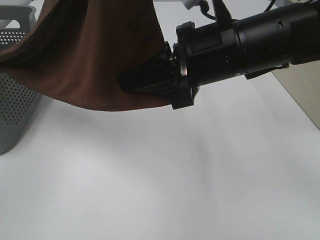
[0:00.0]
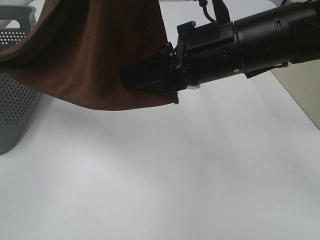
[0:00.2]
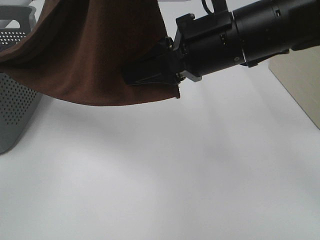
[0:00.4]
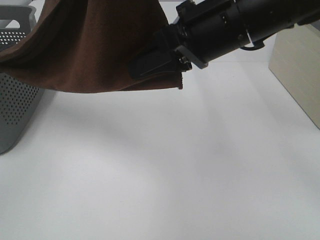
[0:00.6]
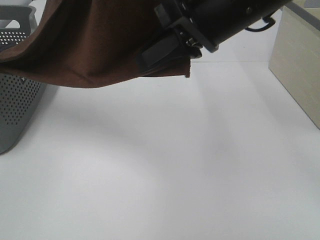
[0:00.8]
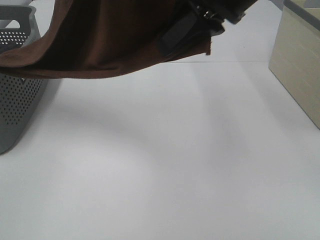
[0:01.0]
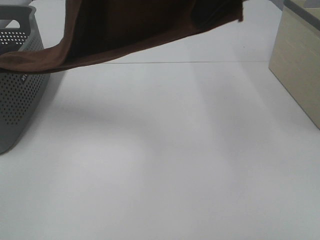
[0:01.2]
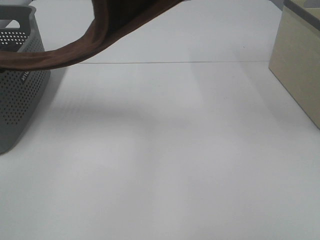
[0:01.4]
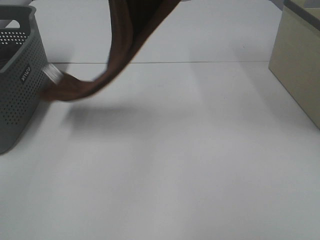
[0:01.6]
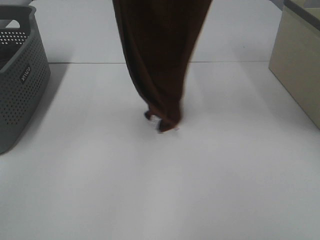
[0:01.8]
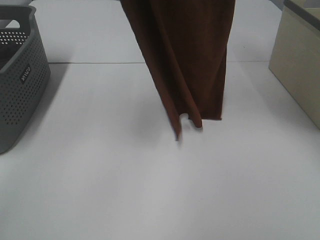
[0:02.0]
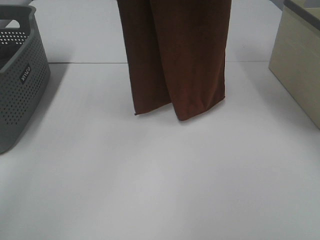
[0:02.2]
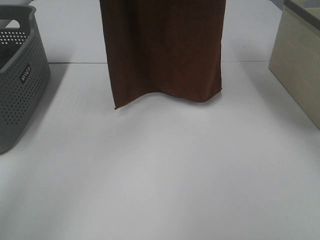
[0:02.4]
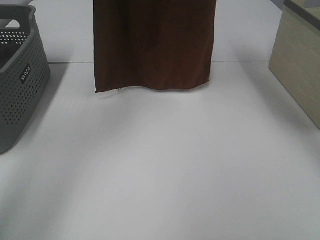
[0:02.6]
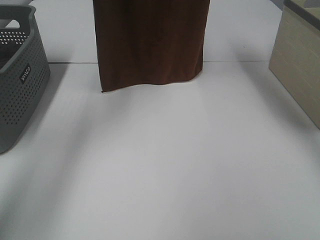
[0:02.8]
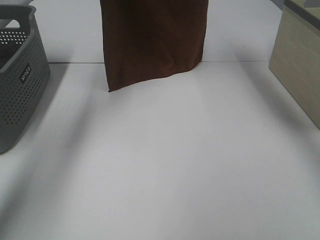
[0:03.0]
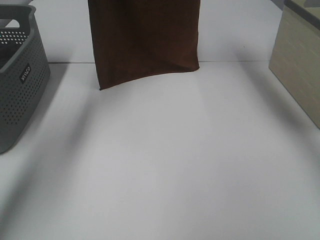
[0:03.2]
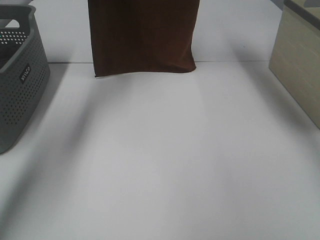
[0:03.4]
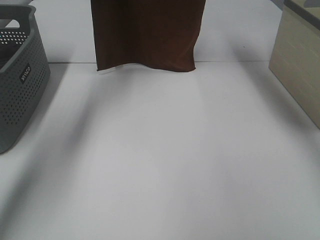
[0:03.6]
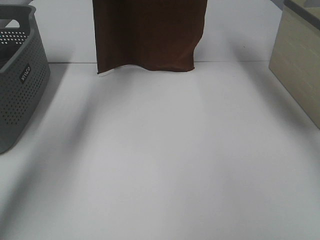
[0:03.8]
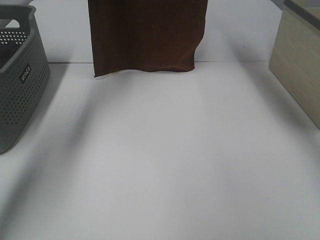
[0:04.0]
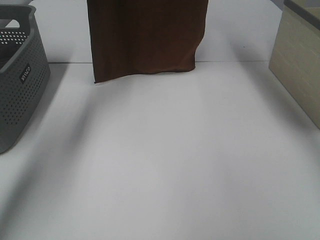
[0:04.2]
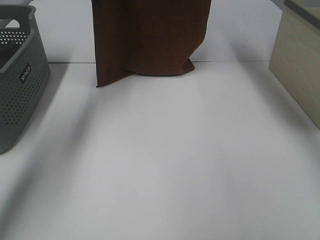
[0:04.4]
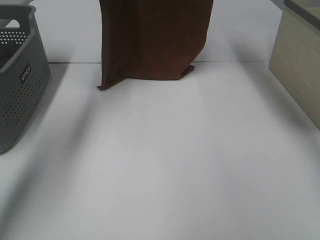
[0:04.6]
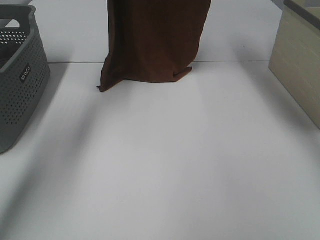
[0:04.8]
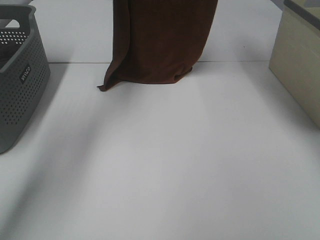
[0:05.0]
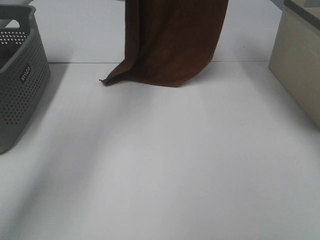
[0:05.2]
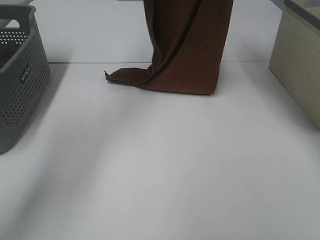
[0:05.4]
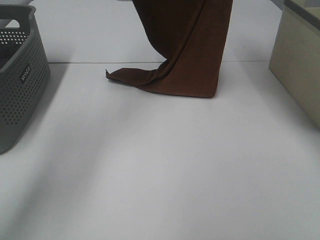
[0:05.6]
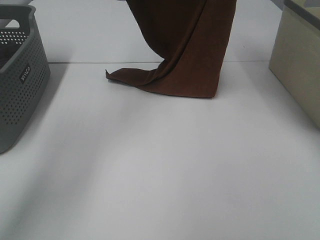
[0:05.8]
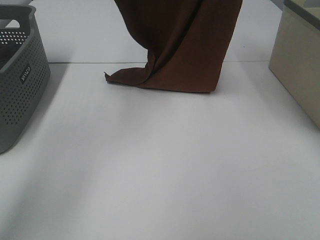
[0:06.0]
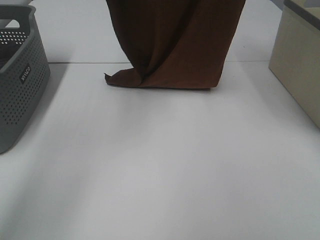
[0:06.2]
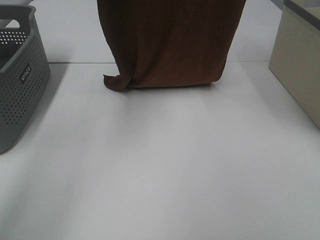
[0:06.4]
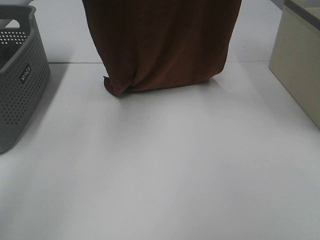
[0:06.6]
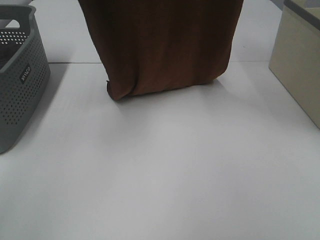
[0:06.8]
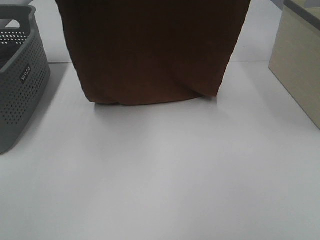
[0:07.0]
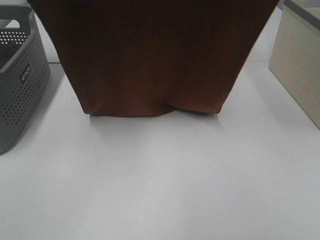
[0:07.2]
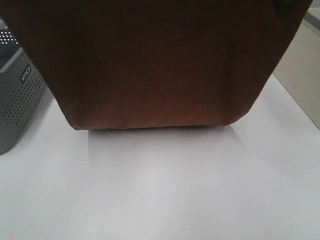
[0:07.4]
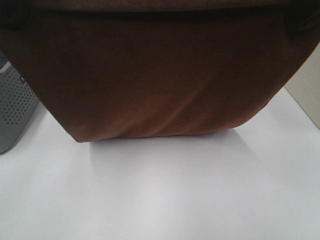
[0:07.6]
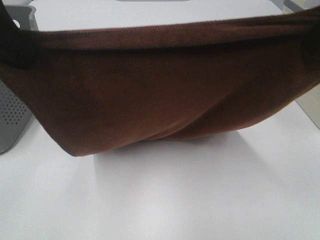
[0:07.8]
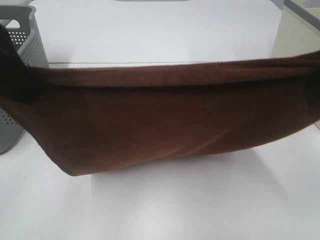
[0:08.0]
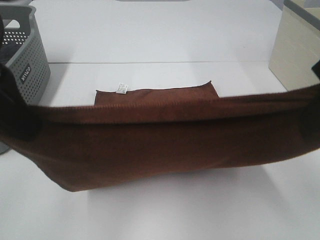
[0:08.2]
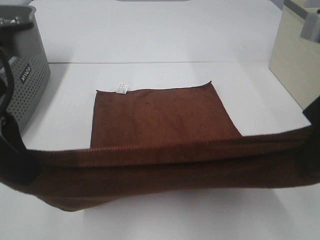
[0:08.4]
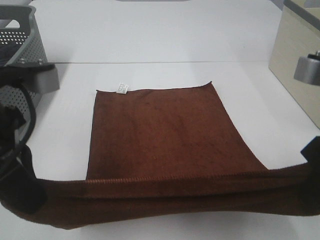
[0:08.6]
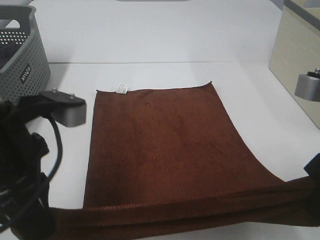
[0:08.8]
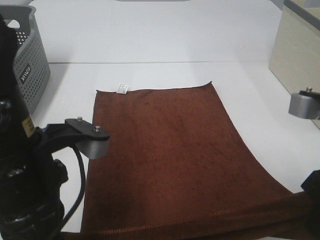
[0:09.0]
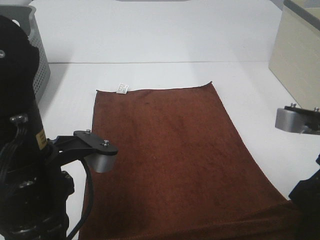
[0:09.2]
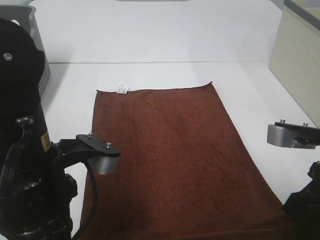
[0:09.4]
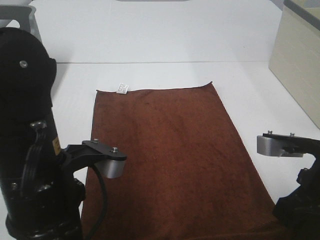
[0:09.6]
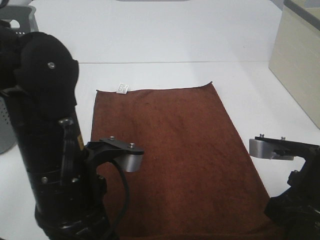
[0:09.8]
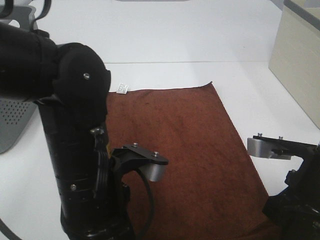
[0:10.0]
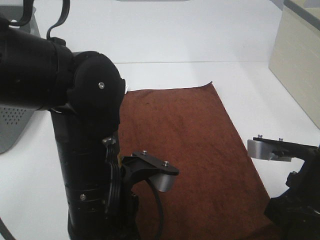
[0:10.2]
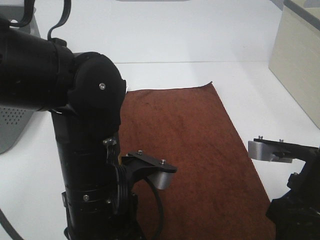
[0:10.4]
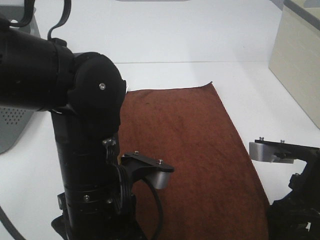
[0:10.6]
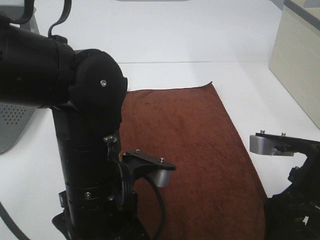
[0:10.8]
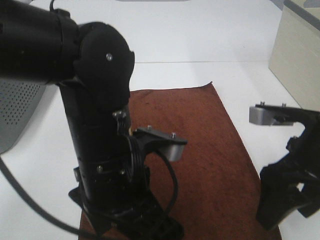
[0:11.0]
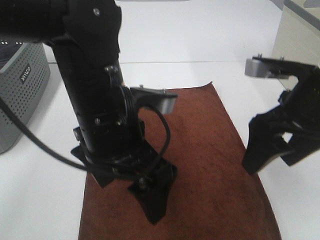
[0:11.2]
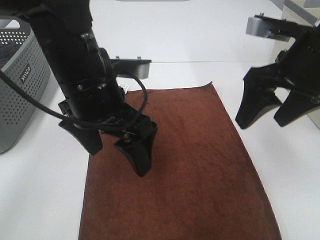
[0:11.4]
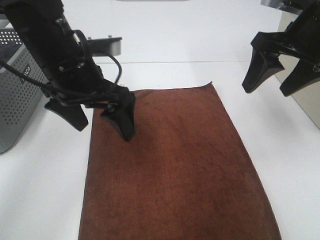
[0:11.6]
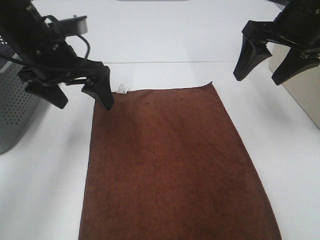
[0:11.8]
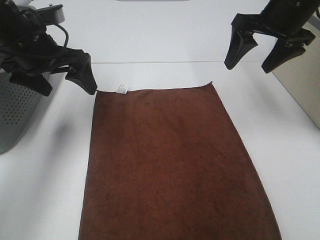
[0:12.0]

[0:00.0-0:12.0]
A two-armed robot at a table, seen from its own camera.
Task of the whole recording: Remove the towel and place it.
Step, 0:00.4 to 0:06.0: Left hand: spread the brown towel flat on the table.
Step, 0:00.4 to 0:06.0: Right hand: spread the brown towel flat on the table.
0:00.0 to 0:01.6: The left gripper moves forward, roughly 5 cm; the right gripper heads upward, covering roughly 25 cm.
0:01.6 to 0:03.0: The left gripper heads forward and downward, covering some 25 cm. Meanwhile the right gripper moves forward, about 15 cm.
0:03.0 to 0:04.4: The grippers make only small movements.
0:04.4 to 0:06.0: Both grippers travel together backward, some 10 cm.
0:06.0 to 0:07.6: Both grippers travel together backward, roughly 20 cm.
0:07.6 to 0:09.0: The right gripper is displaced downward and backward by some 20 cm, while the left gripper moves downward, about 20 cm.
0:09.0 to 0:10.4: The right gripper heads downward, covering approximately 5 cm, and opens; the left gripper goes roughly 5 cm to the right, and opens its fingers.
0:10.4 to 0:12.0: The right gripper moves forward and upward, some 25 cm, and opens. The left gripper heads forward and to the left, covering roughly 25 cm, and opens its fingers.

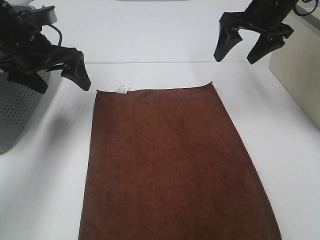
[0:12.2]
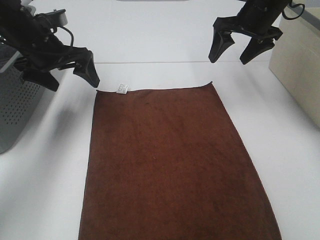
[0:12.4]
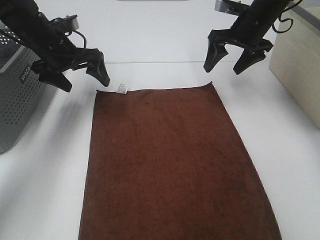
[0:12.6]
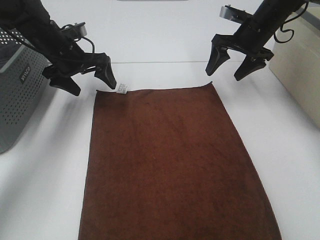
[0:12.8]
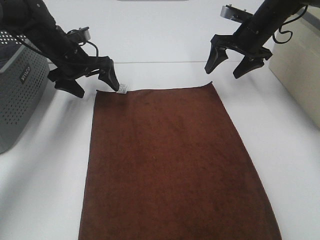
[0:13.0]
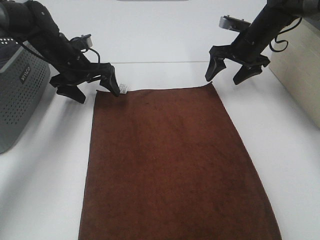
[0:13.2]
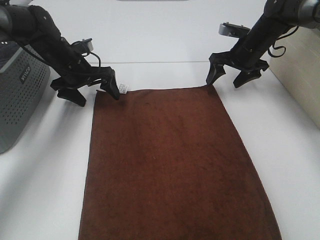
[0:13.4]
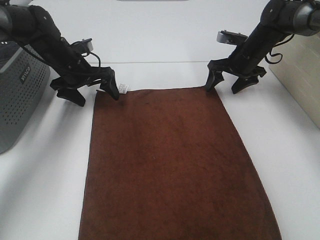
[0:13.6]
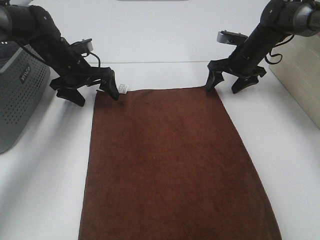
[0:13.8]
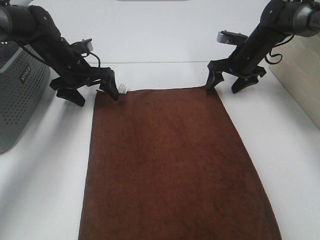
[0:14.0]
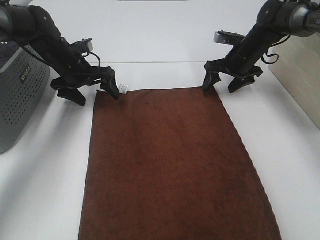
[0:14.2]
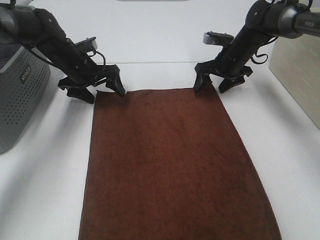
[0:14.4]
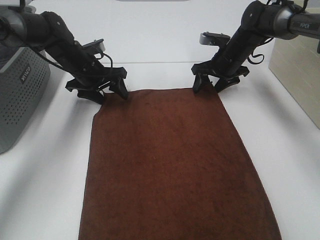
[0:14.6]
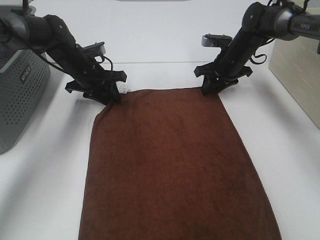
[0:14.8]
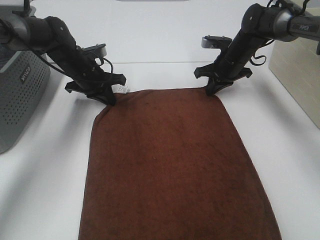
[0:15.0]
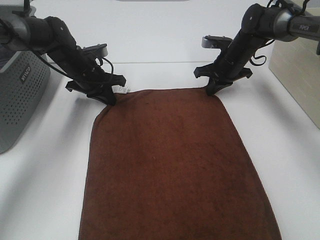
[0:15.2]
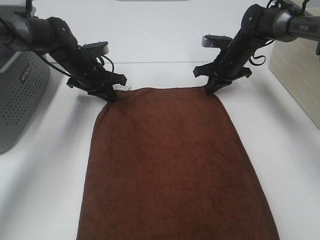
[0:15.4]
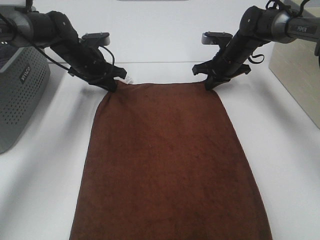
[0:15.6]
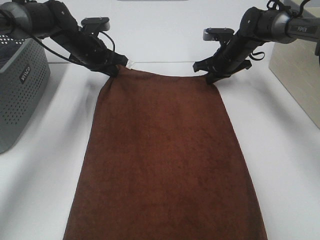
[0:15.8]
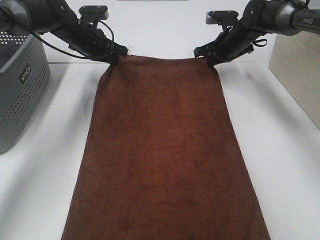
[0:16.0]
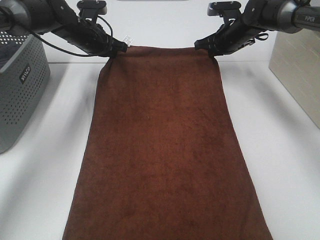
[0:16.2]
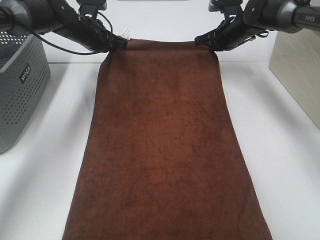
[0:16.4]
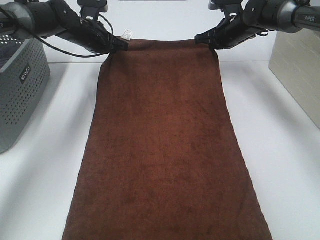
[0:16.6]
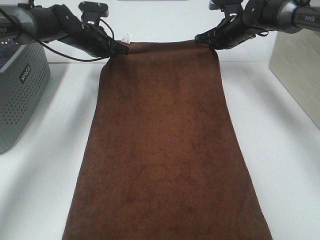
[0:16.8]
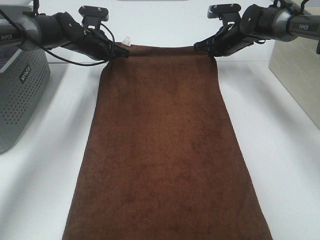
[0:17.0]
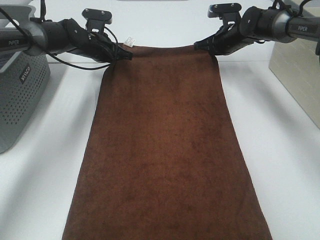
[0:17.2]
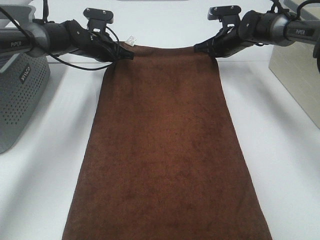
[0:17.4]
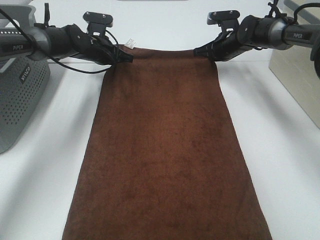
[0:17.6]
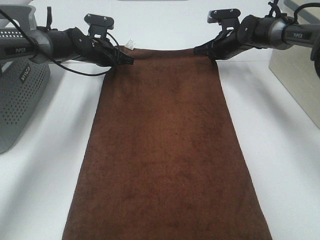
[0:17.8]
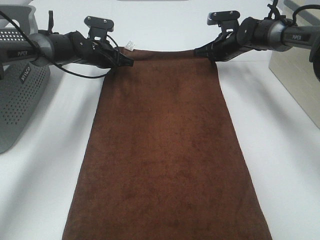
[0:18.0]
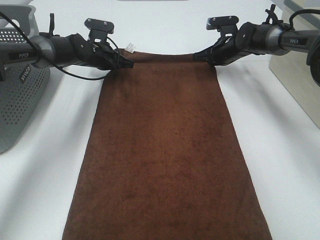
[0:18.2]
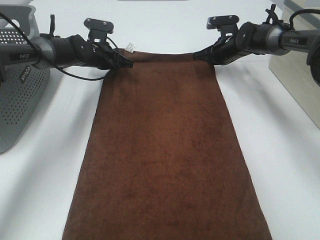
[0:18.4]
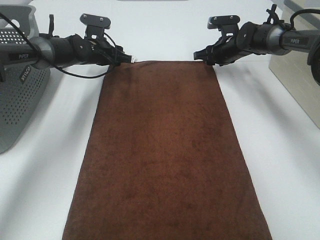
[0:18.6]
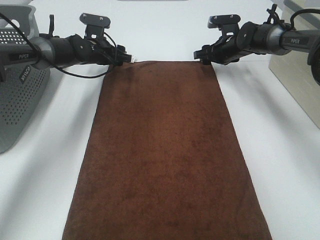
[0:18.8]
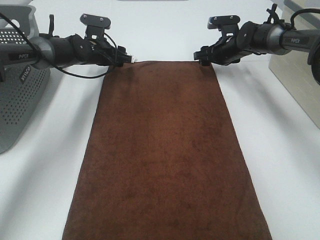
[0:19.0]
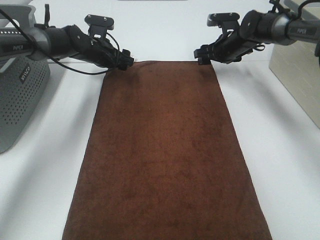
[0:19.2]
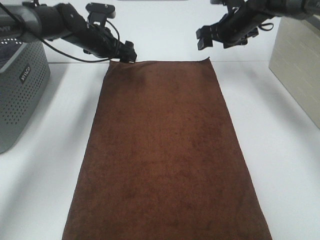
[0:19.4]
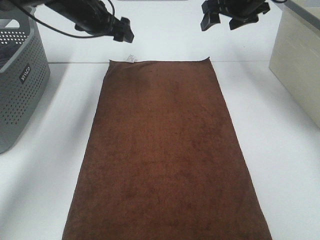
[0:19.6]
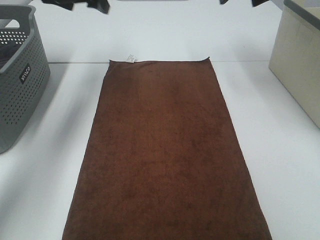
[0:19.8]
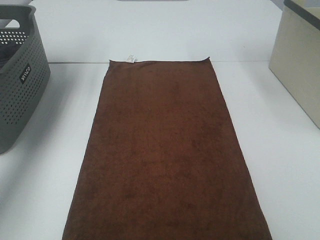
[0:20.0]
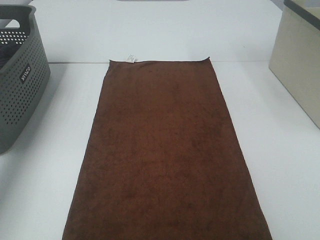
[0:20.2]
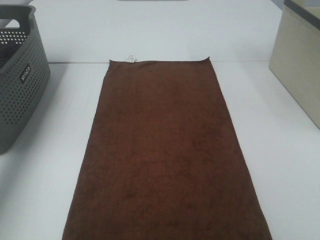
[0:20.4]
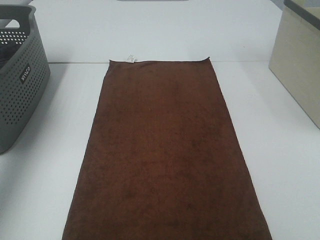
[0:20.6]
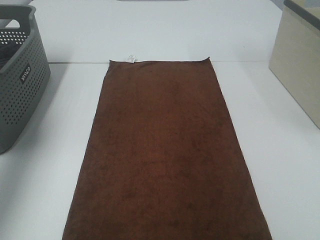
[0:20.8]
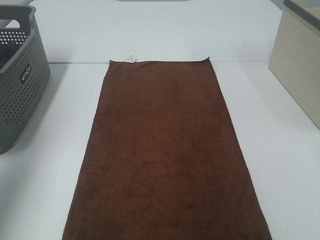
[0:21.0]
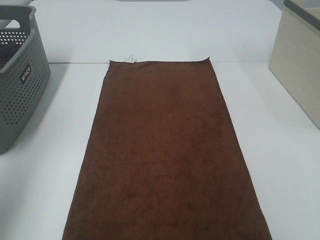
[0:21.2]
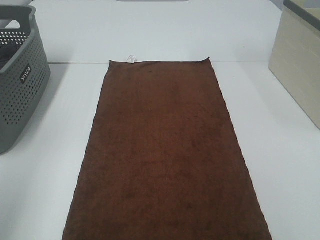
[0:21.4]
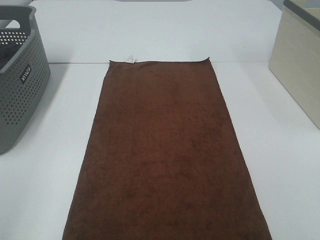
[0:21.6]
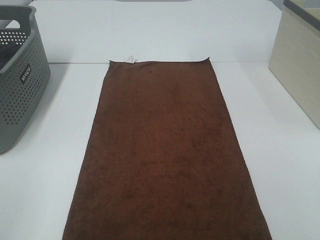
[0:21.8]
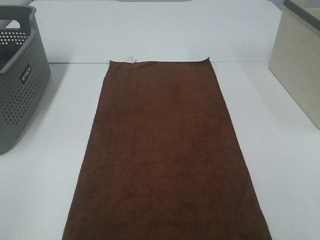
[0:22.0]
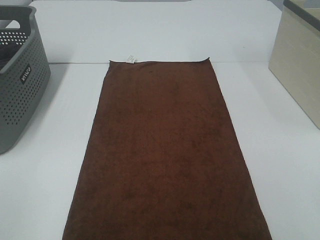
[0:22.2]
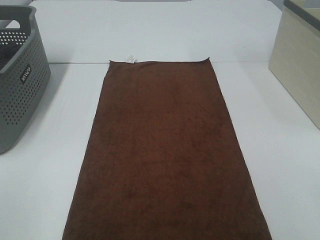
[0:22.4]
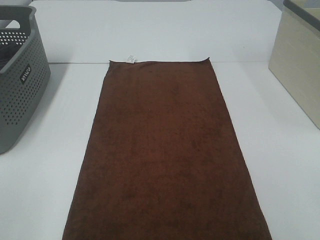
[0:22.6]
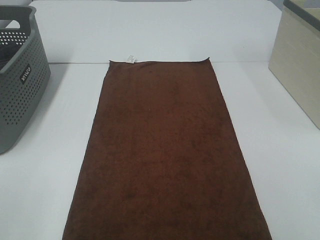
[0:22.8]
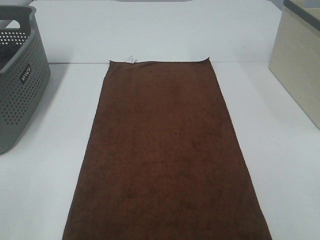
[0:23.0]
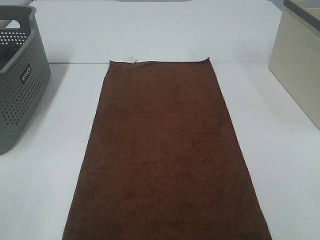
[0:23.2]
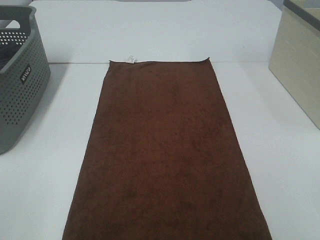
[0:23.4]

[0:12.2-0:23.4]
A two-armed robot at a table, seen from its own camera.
Task of the whole recording: Remove the towel and place it.
0:12.2 to 0:13.8: The two grippers go approximately 15 cm downward and forward.
0:13.8 to 0:15.4: The right gripper closes; the left gripper closes.
0:15.4 to 0:17.0: The right gripper ends up about 5 cm from where it was. The left gripper is displaced forward by roughly 5 cm.
0:17.0 to 0:18.6: The left gripper opens up. Meanwhile the right gripper opens up.
0:18.6 to 0:20.2: The left gripper travels upward, to the left and backward by approximately 35 cm; the right gripper goes approximately 30 cm upward and backward, and opens up.
0:20.2 to 0:21.8: The left gripper heads backward, covering approximately 50 cm.
